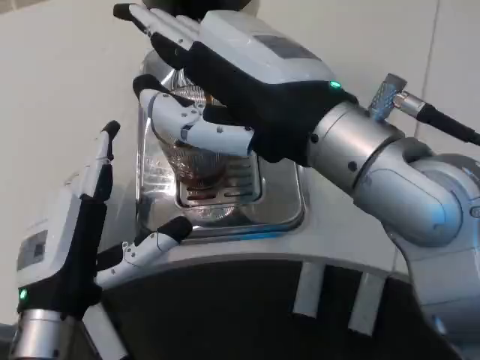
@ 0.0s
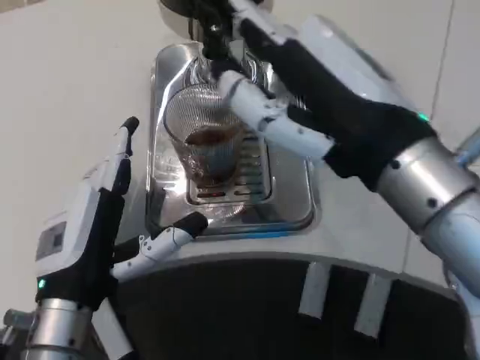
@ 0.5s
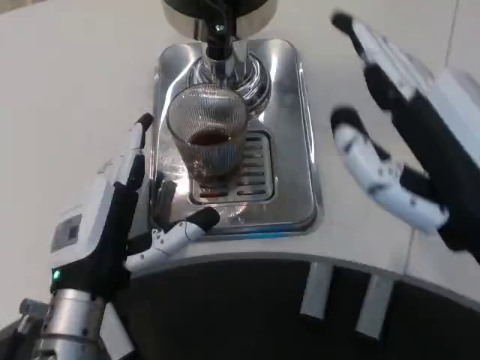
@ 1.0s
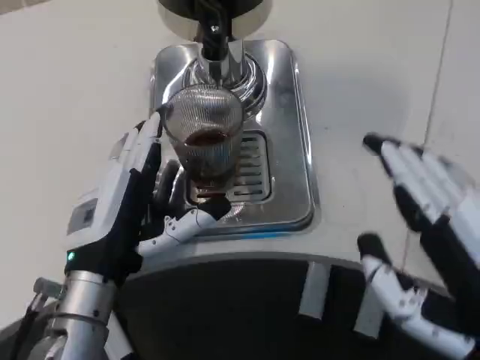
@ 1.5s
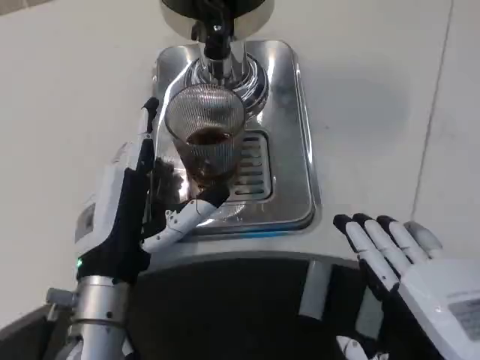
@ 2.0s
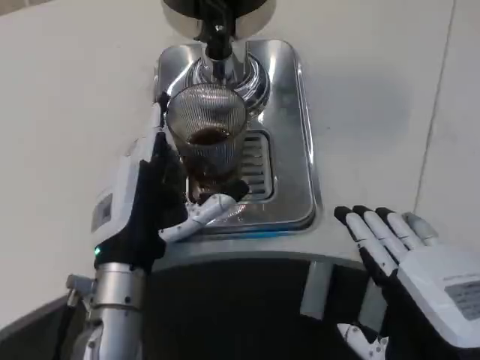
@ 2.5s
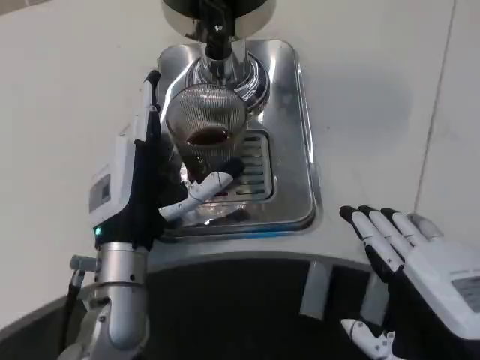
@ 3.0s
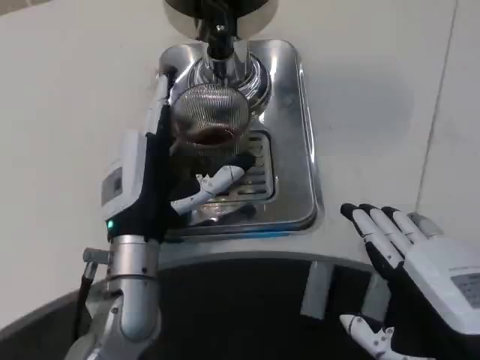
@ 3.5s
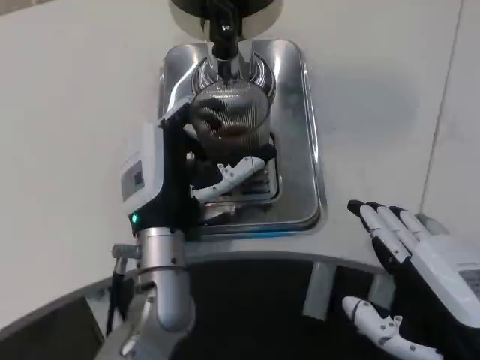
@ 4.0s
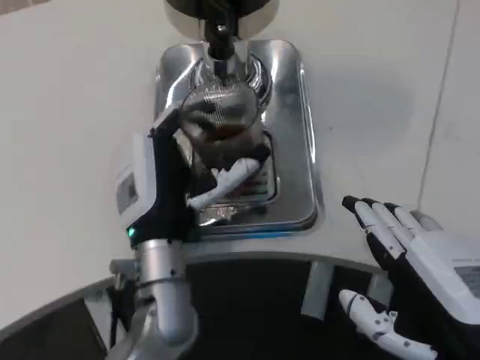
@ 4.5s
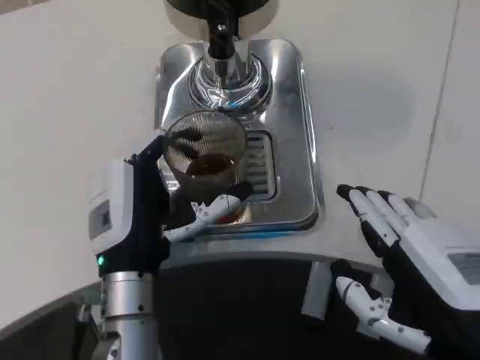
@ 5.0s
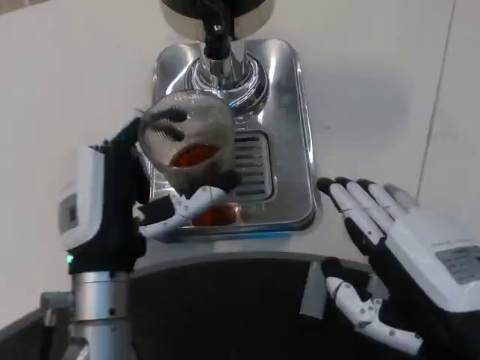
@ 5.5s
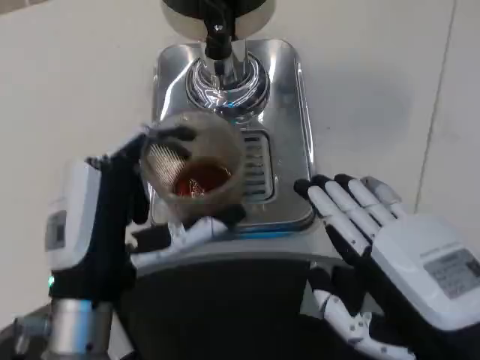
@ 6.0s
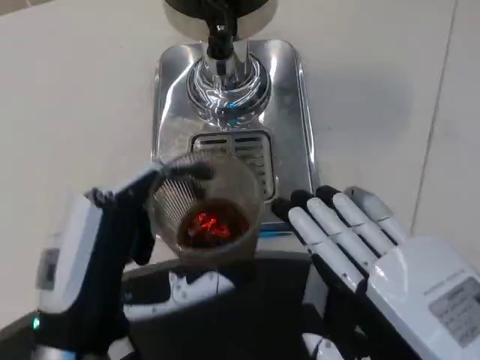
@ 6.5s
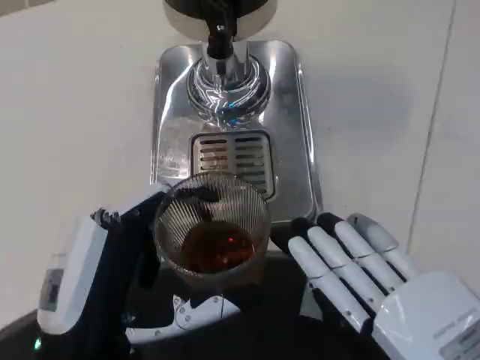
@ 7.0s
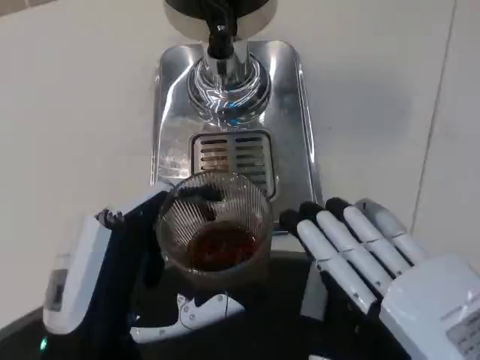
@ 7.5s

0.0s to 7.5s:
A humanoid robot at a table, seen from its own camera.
Task of the whole recording: Grasp the cup under the faucet to collect the drink, then remove the cup.
0.0s to 2.0s: The left hand shifts by about 5 cm. The right hand moves downward, backward and to the right, approximately 20 cm.
2.0s to 4.0s: The left hand moves to the right, about 5 cm.
4.0s to 5.5s: The left hand heads backward, covering about 5 cm.
5.5s to 7.5s: Both hands travel together backward, approximately 10 cm.

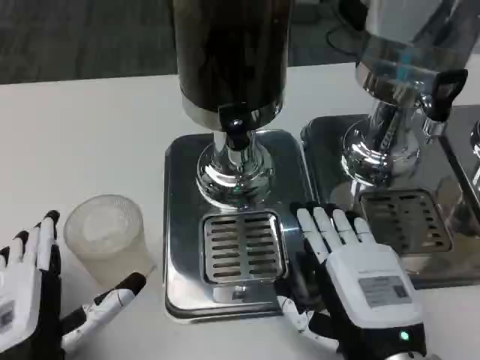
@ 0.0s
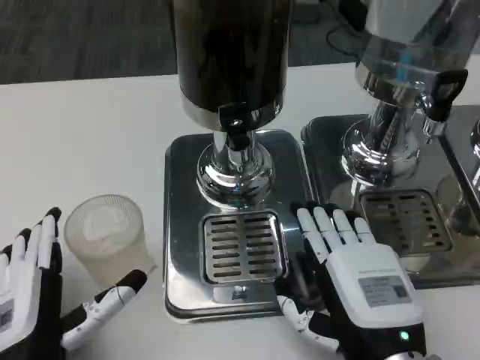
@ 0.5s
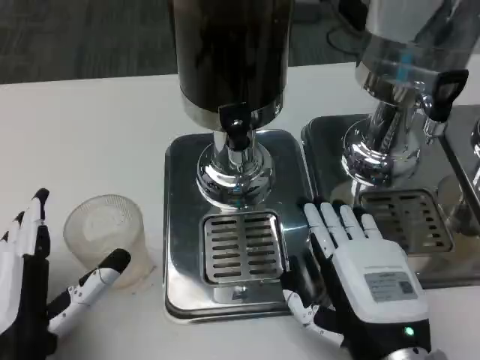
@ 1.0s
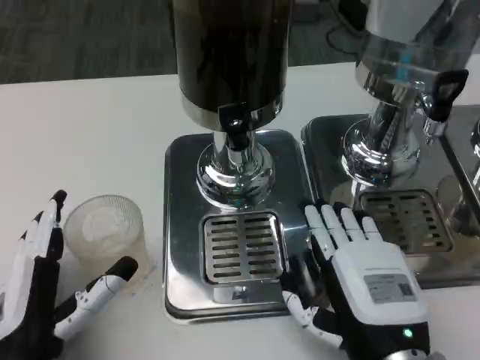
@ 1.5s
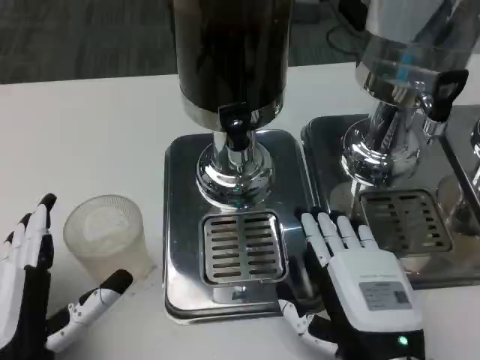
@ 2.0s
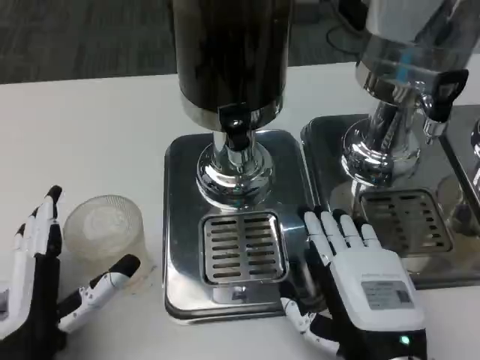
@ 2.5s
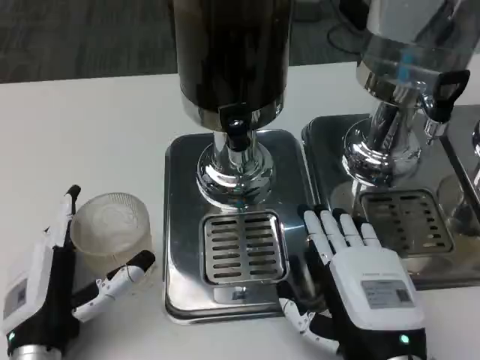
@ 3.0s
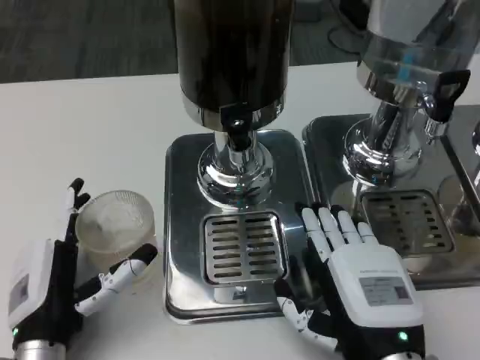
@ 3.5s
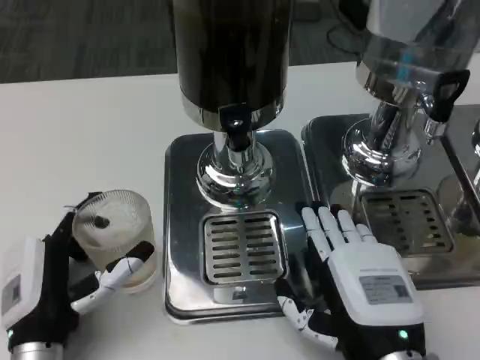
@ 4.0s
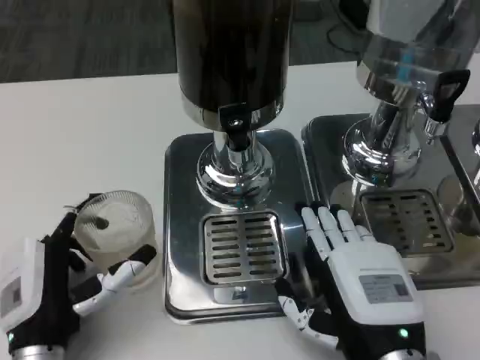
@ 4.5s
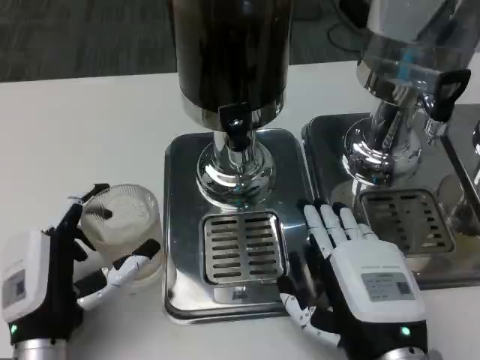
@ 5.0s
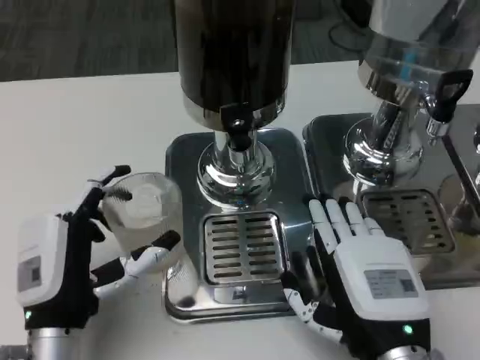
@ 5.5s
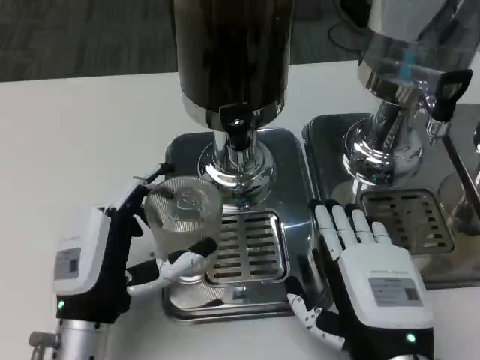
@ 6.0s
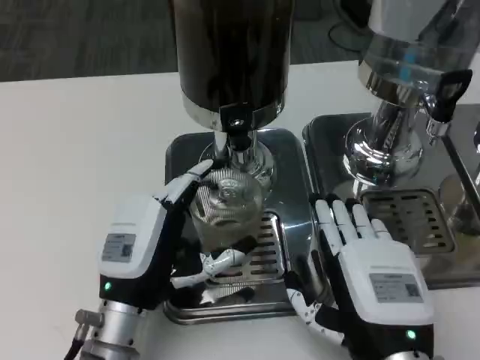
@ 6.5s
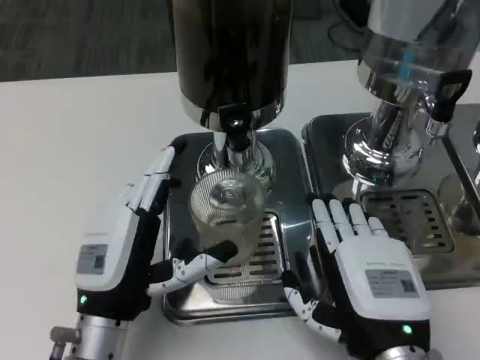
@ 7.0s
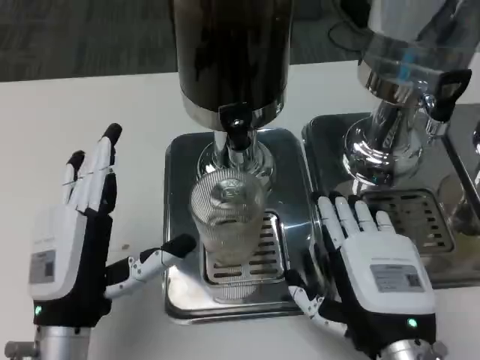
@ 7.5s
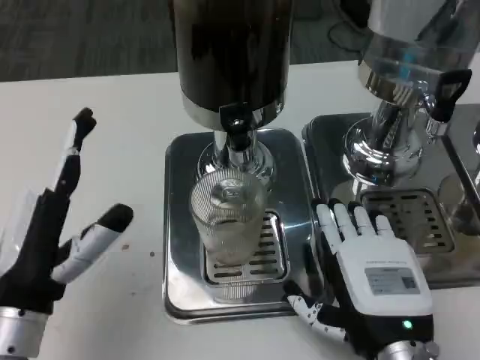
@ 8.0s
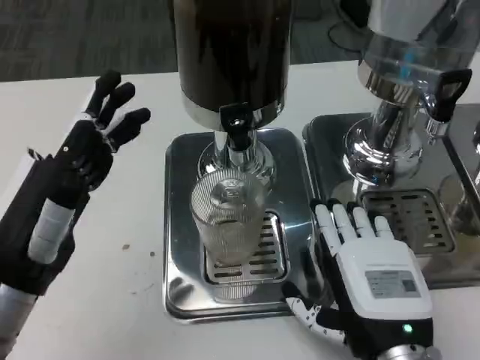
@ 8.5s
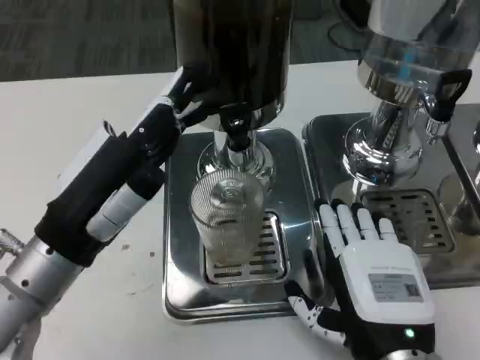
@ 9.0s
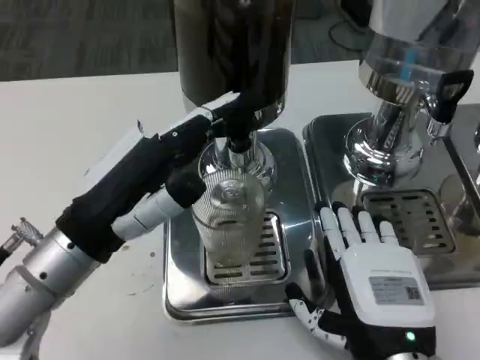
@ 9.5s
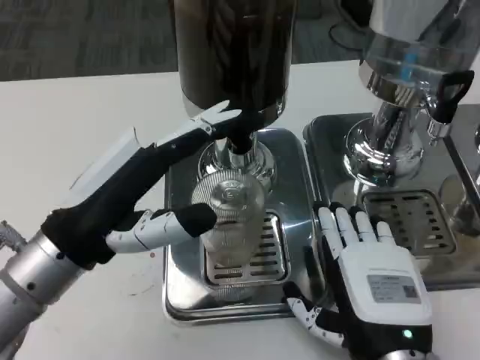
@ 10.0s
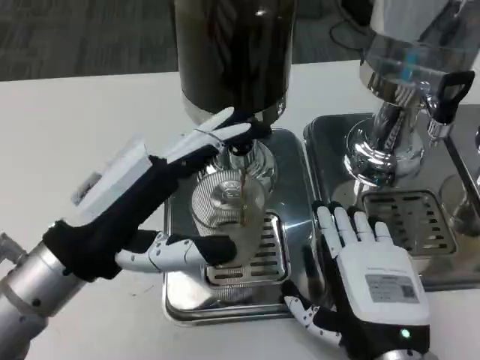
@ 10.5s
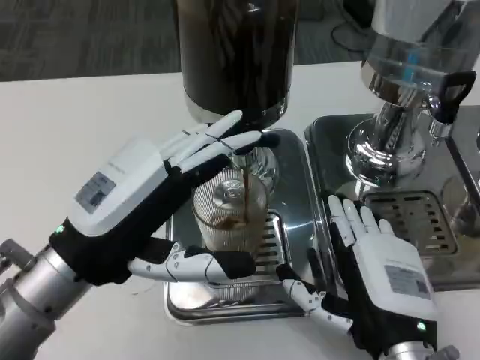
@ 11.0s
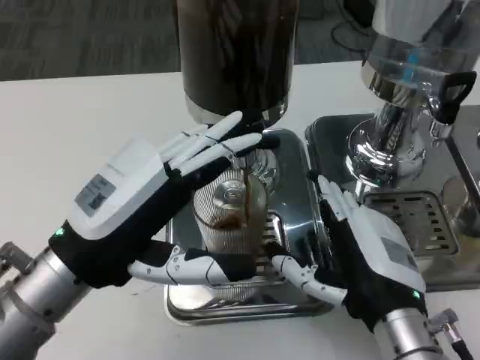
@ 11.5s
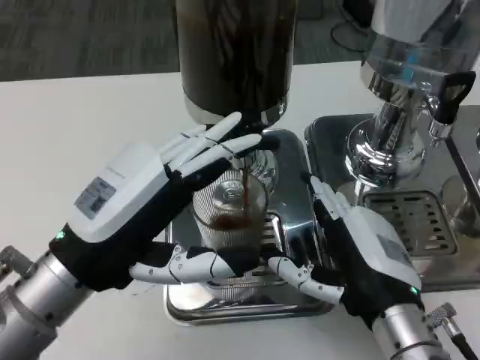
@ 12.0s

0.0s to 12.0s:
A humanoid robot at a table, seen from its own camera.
Task of the whole recording: Grasp the cup under the faucet to collect the drink, then remove the cup.
2.0s to 4.0s: The left hand ends up some 5 cm from where it was.
6.0s to 8.0s: The left hand goes approximately 5 cm upward.
8.0s to 10.0s: The left hand is displaced upward by some 5 cm.

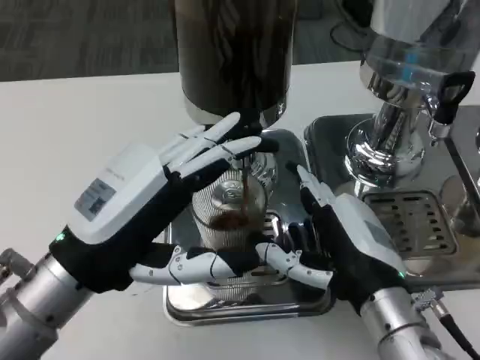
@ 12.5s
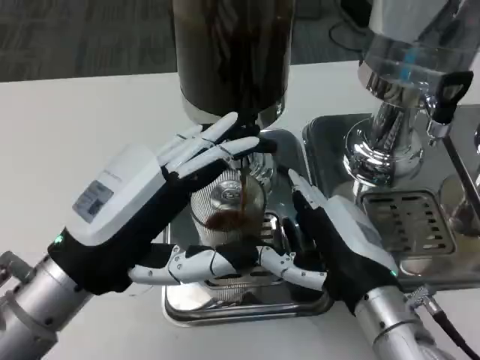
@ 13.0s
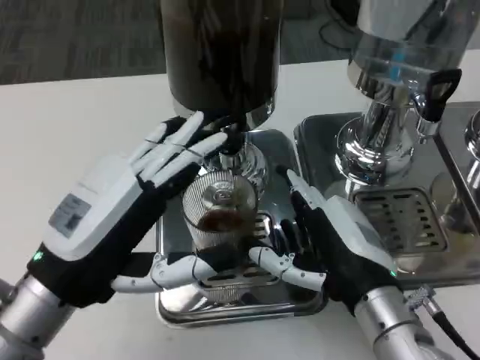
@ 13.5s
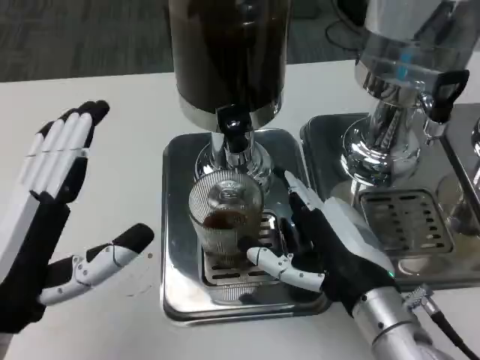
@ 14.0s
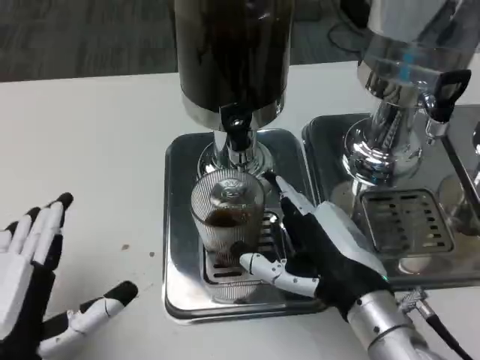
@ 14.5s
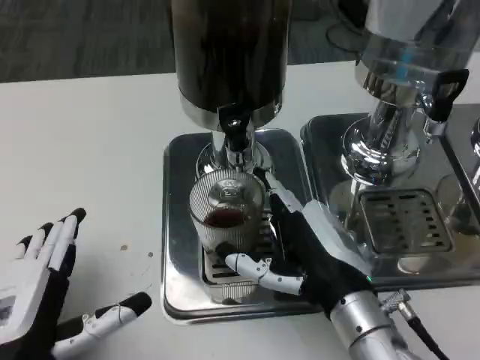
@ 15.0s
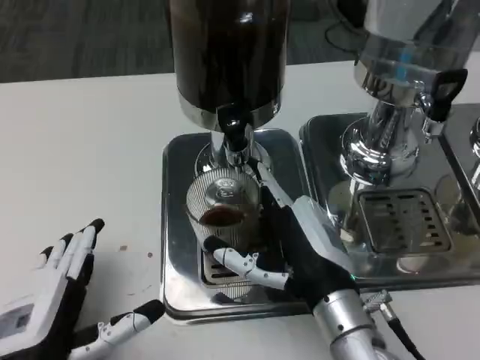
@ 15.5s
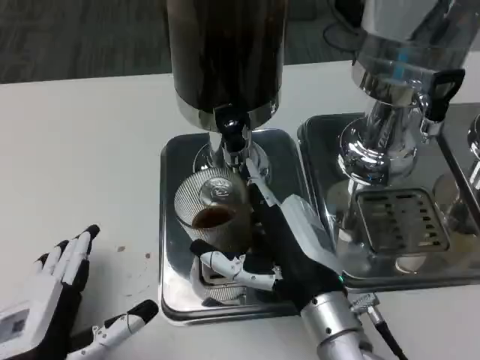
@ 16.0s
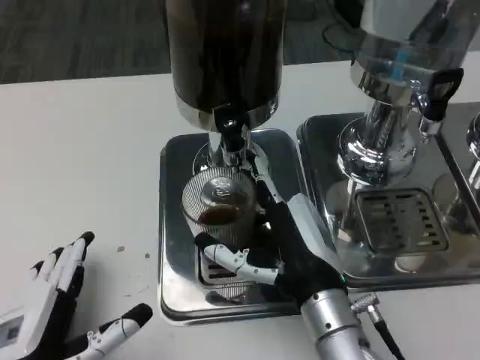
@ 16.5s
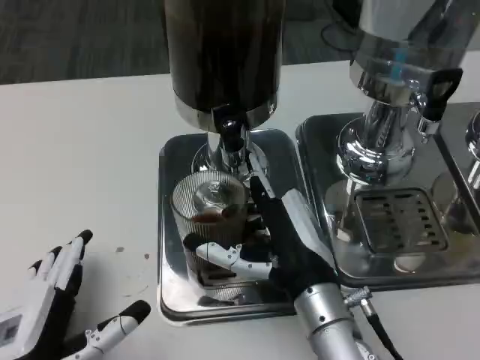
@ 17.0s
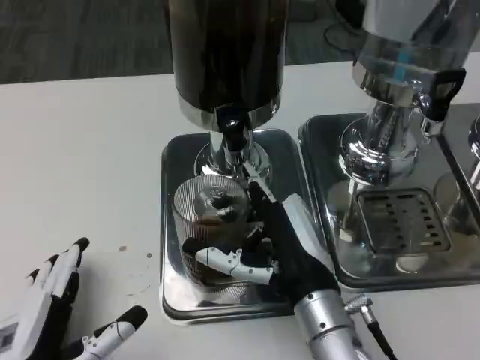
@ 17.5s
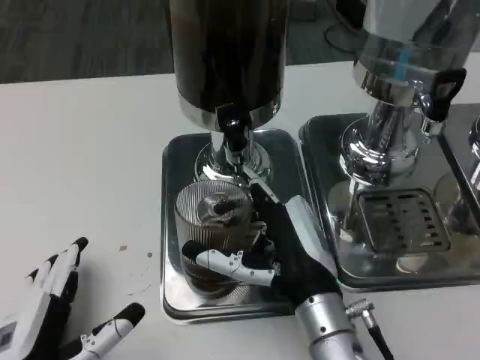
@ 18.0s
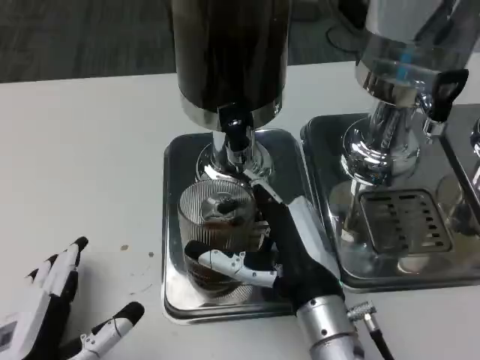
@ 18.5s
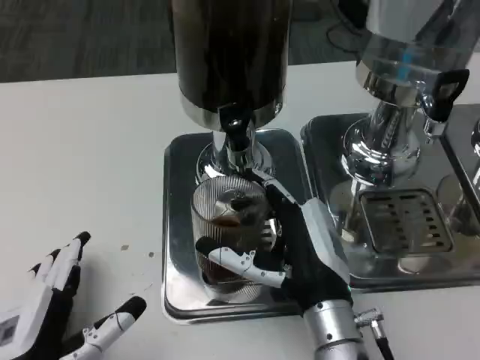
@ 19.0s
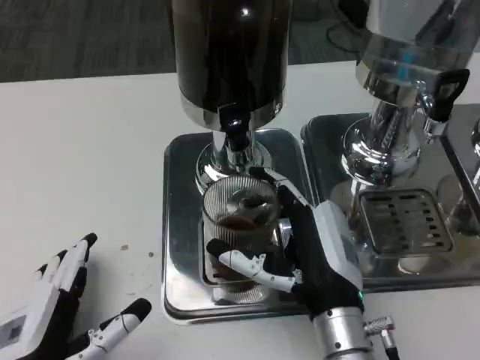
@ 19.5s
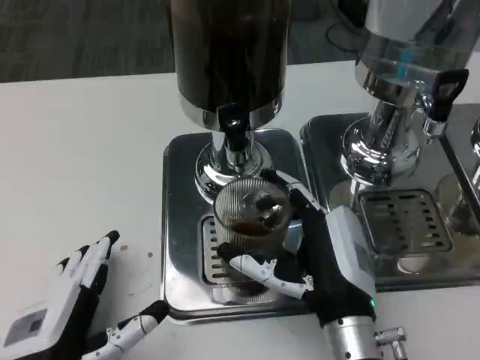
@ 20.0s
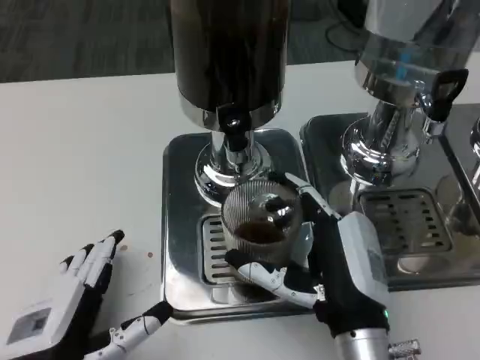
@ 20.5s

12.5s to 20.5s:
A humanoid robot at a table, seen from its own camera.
Task of the whole recording: Grasp the cup under the faucet to collect the drink, then remove the cup.
12.5s to 14.5s: The left hand goes approximately 10 cm backward and downward.
14.5s to 16.5s: The right hand shifts by about 5 cm.
